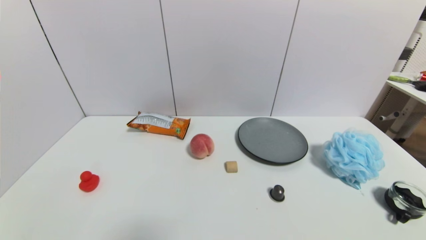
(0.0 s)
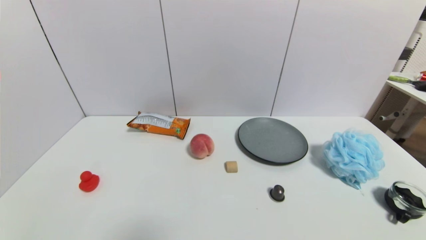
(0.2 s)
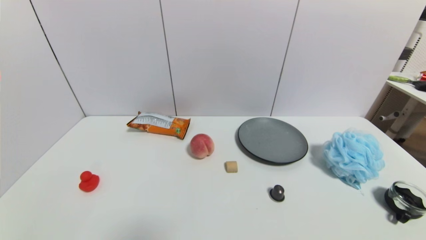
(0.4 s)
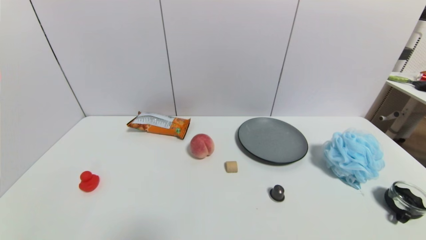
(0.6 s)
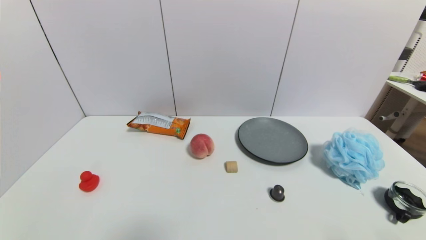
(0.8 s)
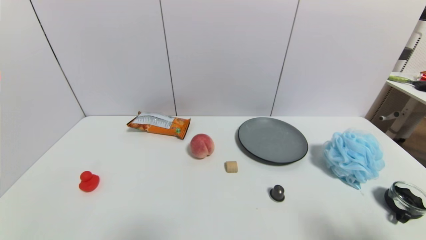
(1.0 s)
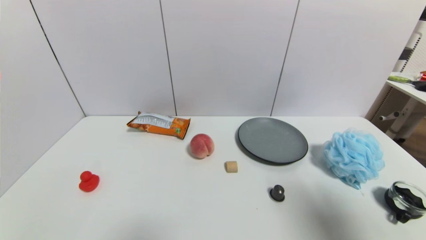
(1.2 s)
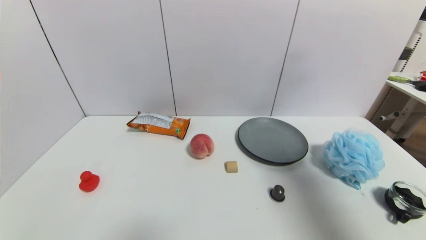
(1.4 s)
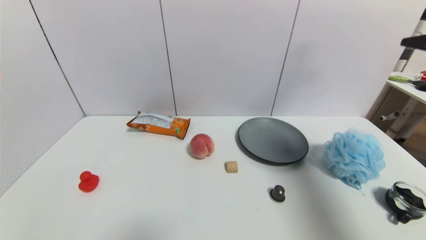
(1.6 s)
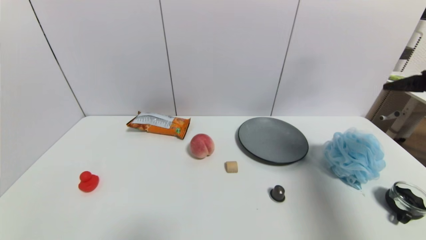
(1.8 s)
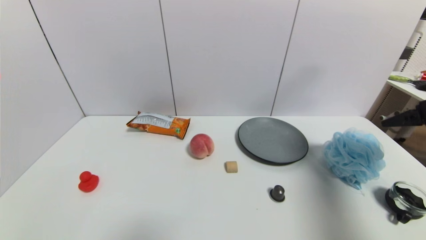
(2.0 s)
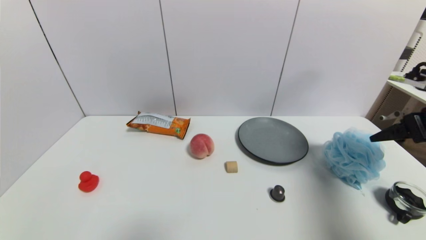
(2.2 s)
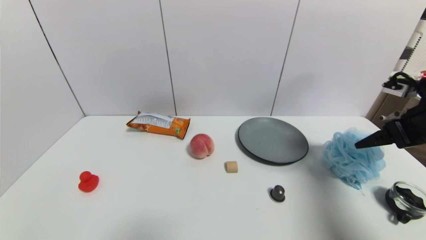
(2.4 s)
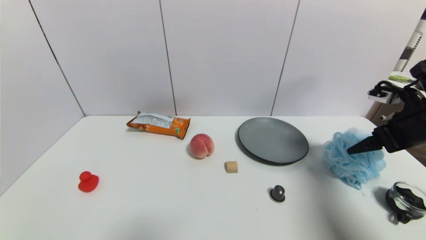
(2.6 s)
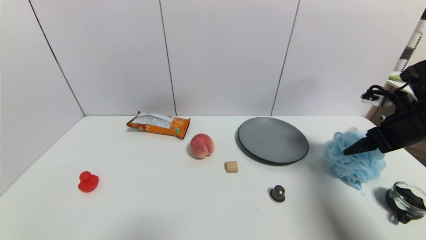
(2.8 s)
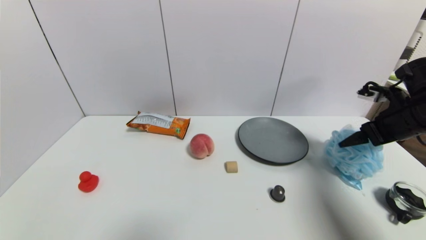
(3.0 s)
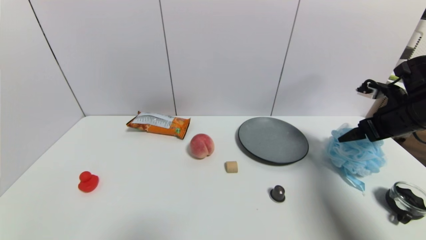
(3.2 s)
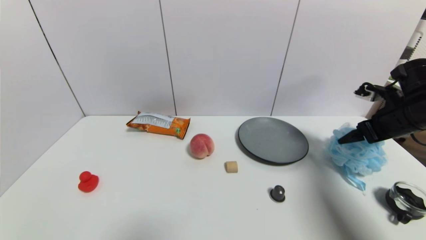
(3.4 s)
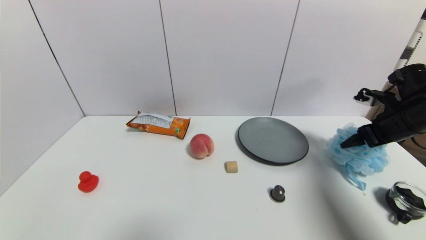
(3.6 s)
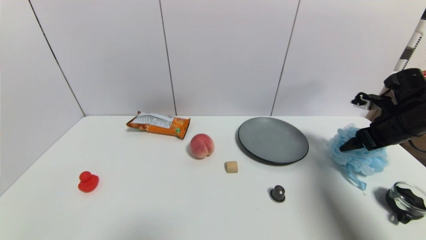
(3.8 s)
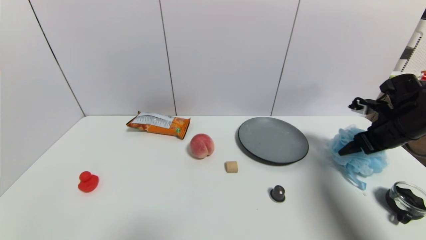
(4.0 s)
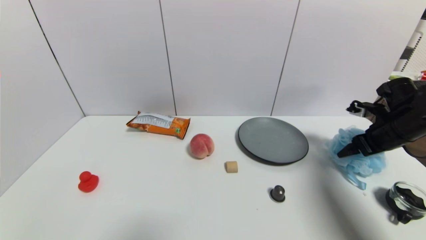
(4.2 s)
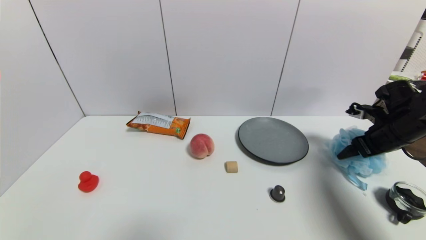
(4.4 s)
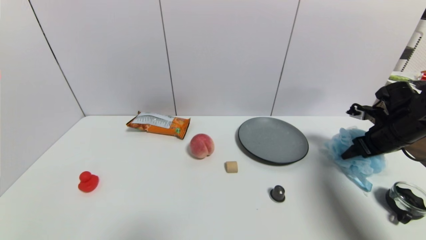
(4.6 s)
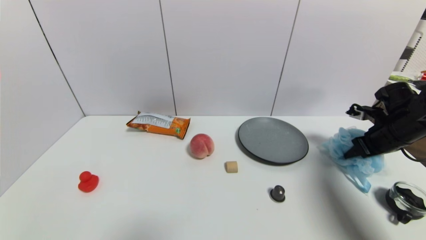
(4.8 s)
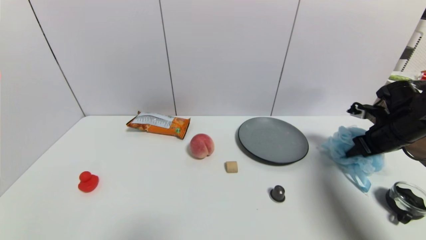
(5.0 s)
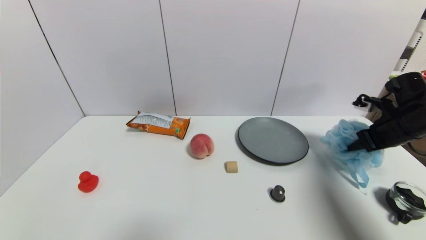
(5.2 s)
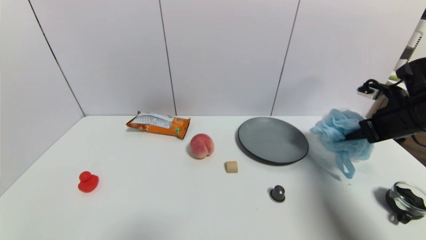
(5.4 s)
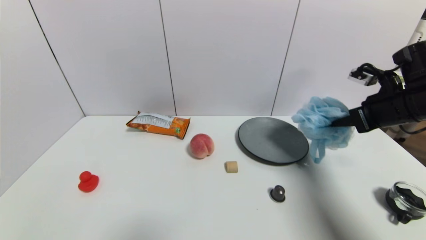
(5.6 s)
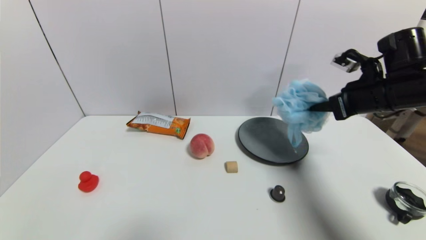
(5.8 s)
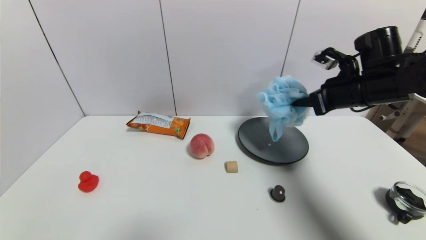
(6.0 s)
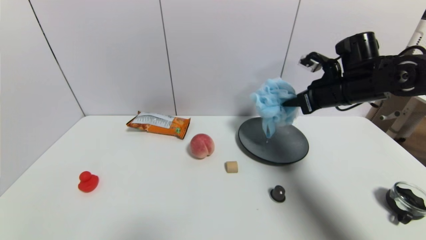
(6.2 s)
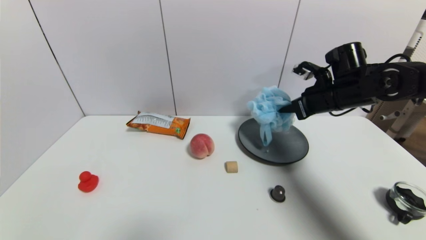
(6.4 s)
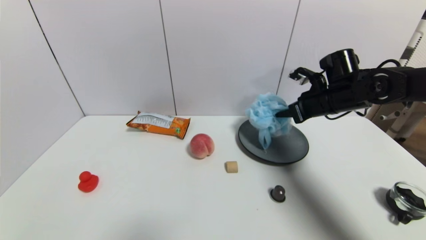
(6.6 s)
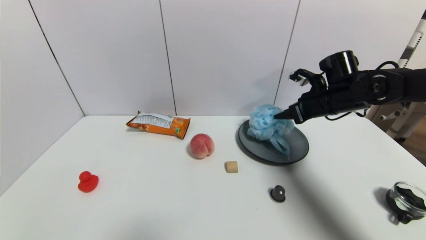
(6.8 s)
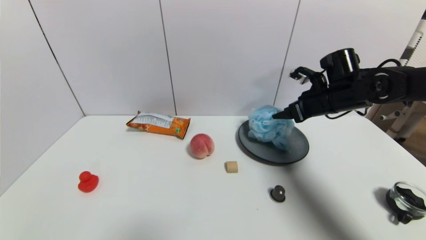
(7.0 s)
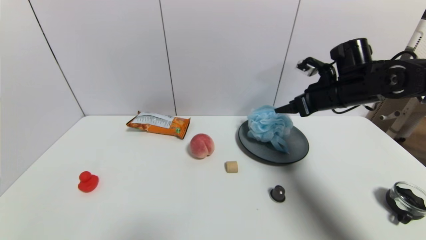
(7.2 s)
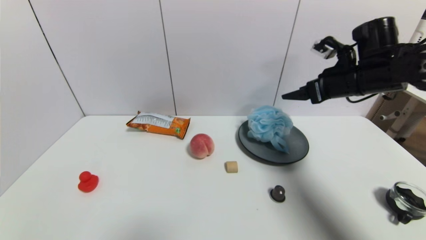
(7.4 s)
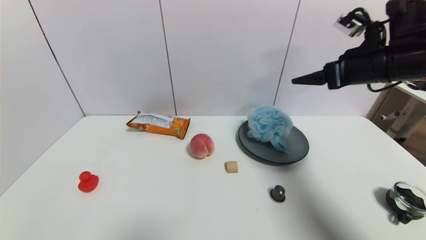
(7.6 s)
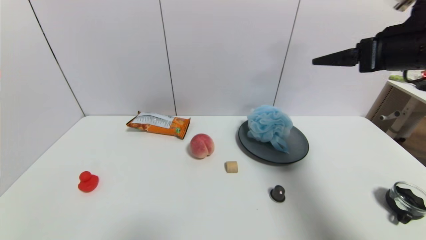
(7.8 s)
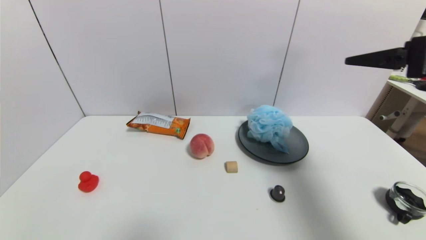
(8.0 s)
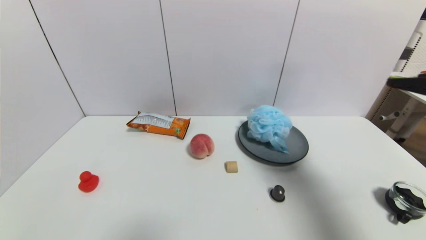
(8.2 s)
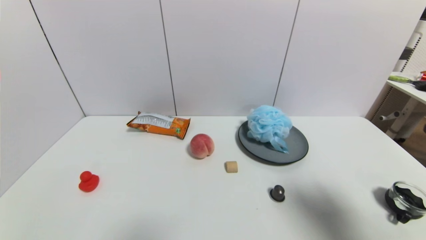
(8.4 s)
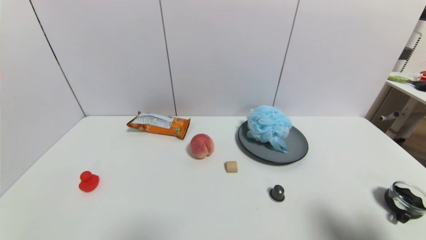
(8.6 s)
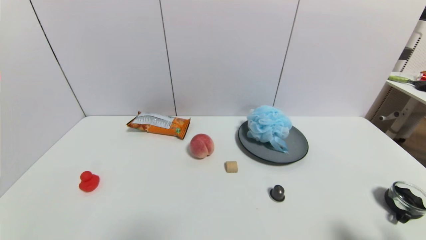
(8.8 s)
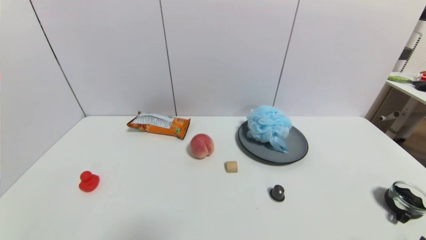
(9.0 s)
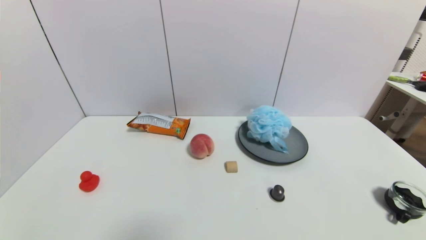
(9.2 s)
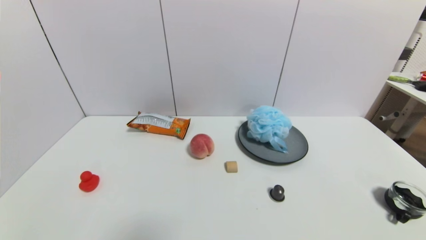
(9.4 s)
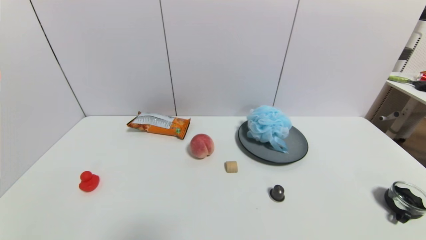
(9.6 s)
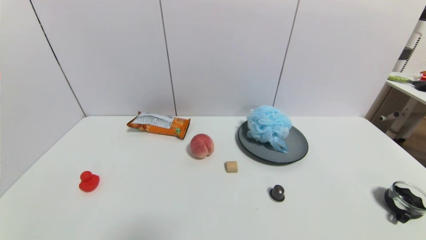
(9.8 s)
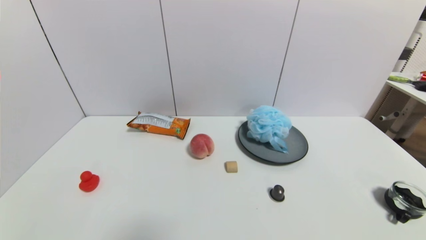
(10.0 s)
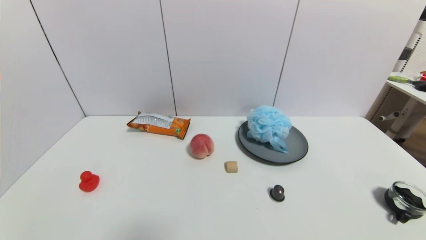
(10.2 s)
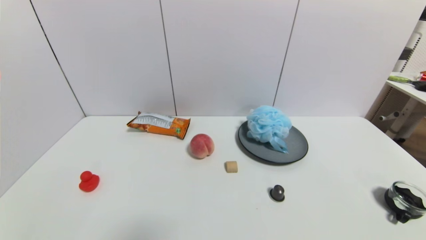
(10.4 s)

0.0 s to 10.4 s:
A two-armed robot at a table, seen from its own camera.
Task of the whole recording: use a gripper to pick the target object and place on the gray plate.
Step, 0.0 to 5.0 s: Grasp the shower sphere with the right gripper.
Step, 5.2 to 7.4 s: Place the shower sphere on the gray plate with the right gripper.
0.0 to 1.4 s: The right gripper shifts roughly 35 cm upward and forward.
1.4 to 3.0 s: The right gripper is displaced forward and downward by approximately 20 cm.
3.0 to 4.4 s: The right gripper heads downward, covering some 5 cm.
4.4 to 6.0 s: The right gripper goes about 15 cm to the left and upward, and closes its fingers.
6.0 to 7.4 s: The right gripper opens up.
7.4 to 9.0 s: The right gripper shifts some 40 cm backward and downward.

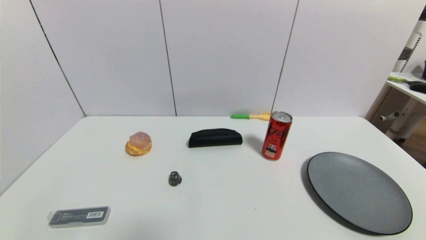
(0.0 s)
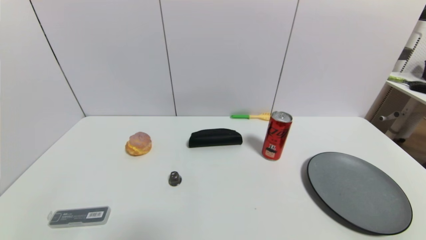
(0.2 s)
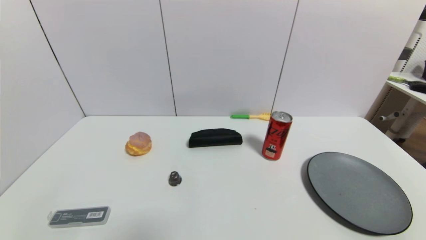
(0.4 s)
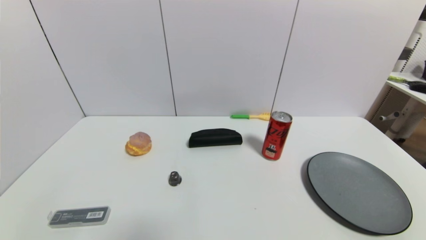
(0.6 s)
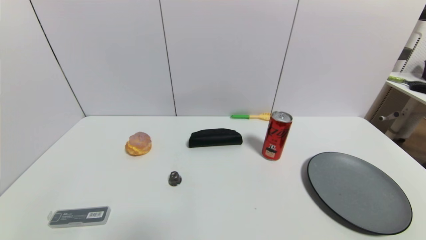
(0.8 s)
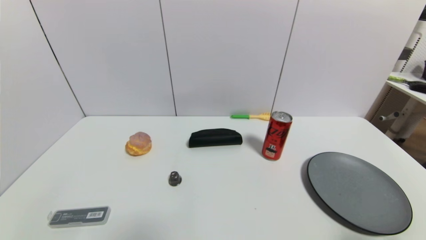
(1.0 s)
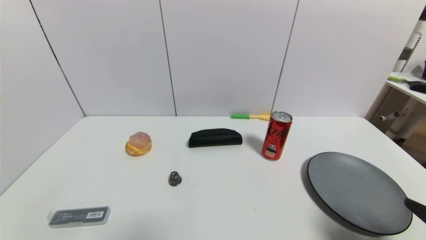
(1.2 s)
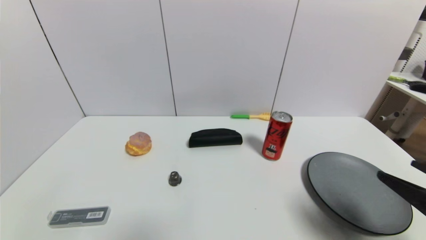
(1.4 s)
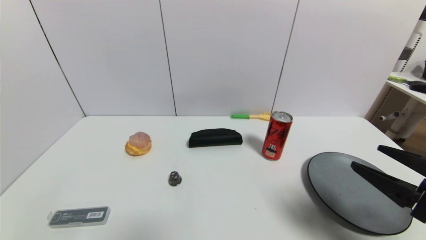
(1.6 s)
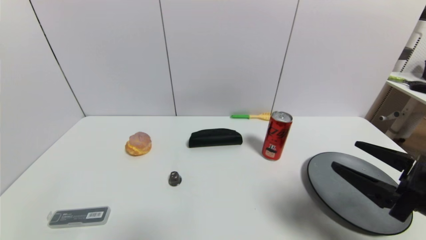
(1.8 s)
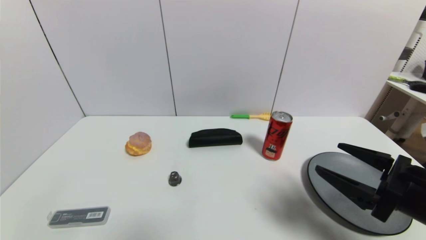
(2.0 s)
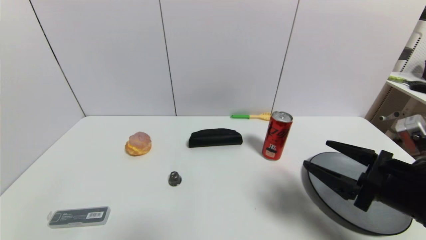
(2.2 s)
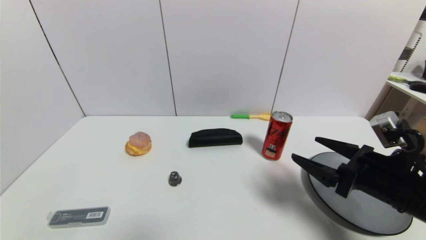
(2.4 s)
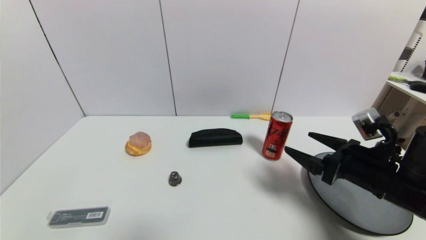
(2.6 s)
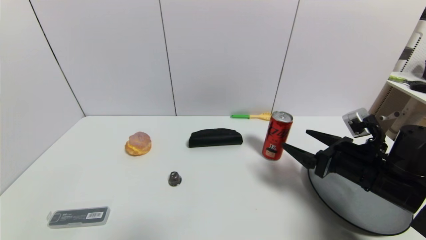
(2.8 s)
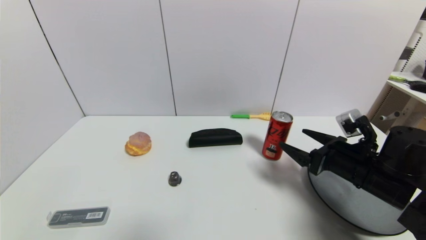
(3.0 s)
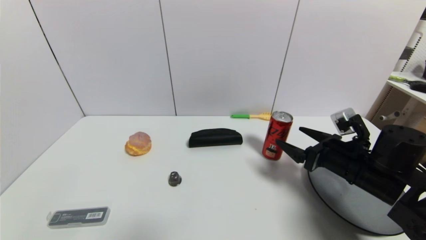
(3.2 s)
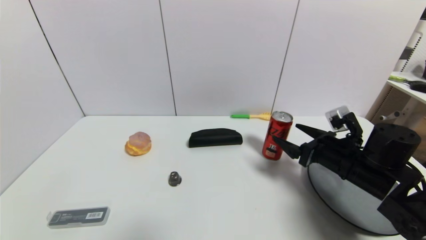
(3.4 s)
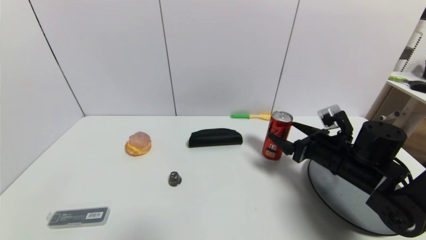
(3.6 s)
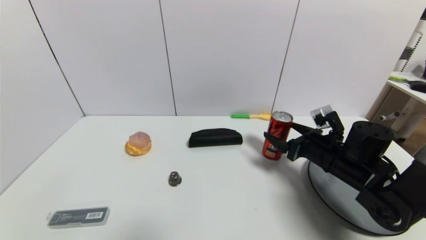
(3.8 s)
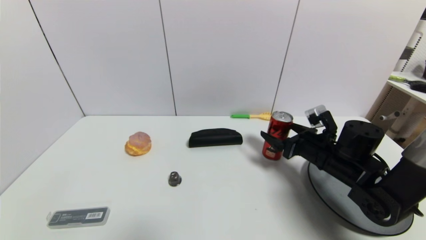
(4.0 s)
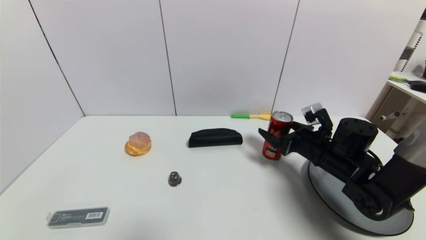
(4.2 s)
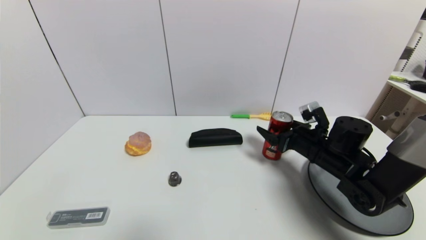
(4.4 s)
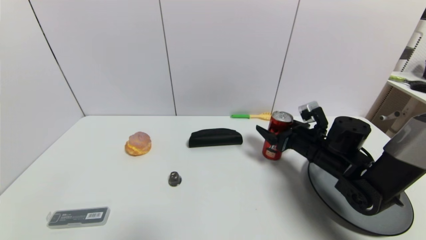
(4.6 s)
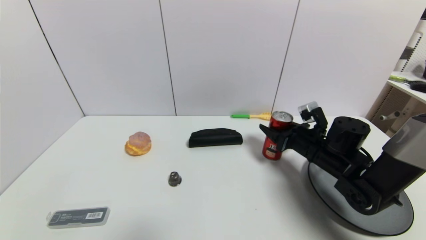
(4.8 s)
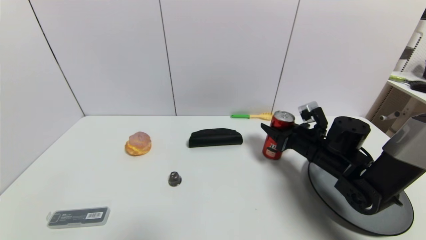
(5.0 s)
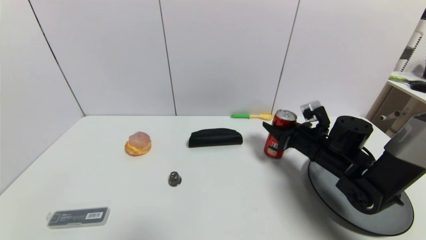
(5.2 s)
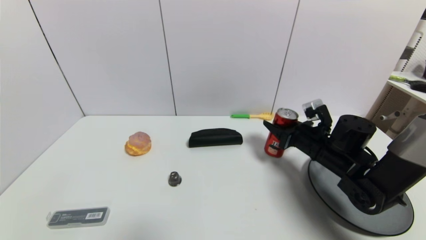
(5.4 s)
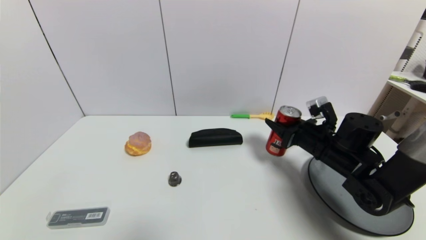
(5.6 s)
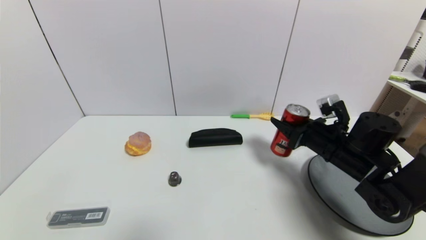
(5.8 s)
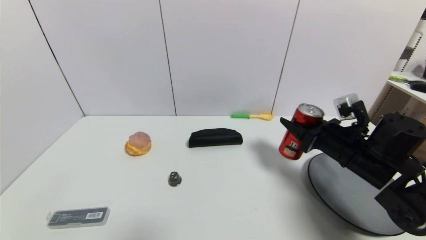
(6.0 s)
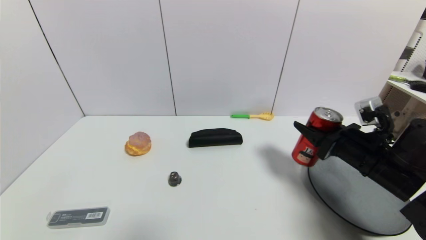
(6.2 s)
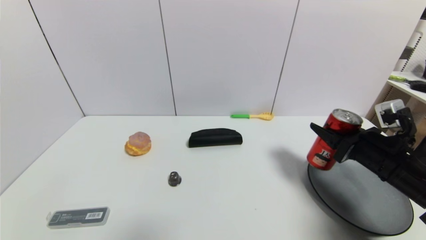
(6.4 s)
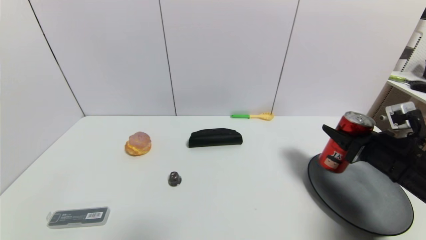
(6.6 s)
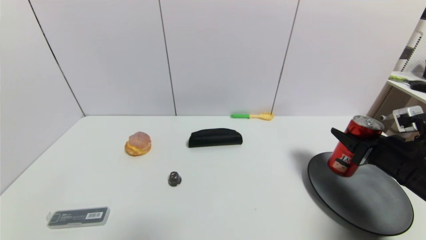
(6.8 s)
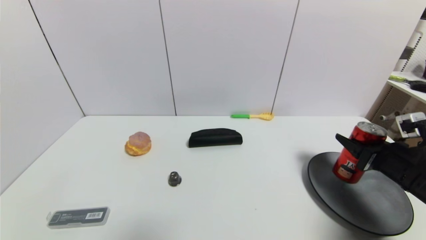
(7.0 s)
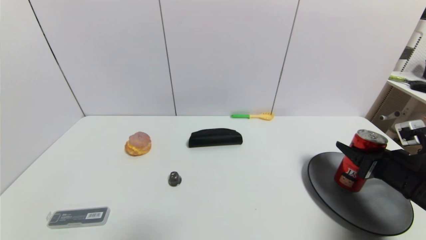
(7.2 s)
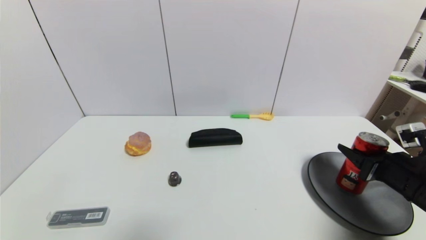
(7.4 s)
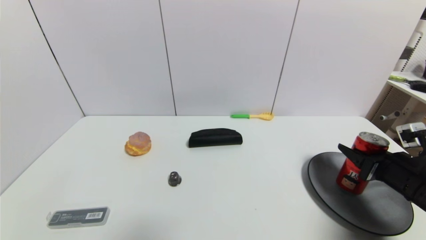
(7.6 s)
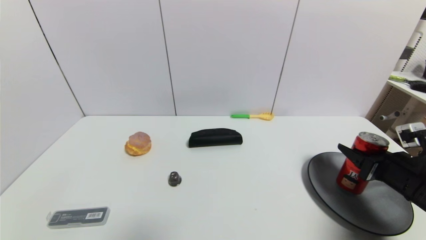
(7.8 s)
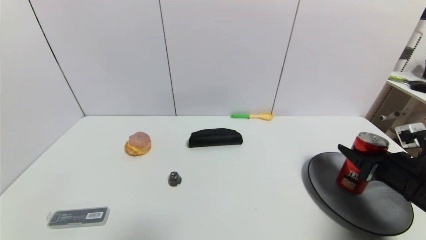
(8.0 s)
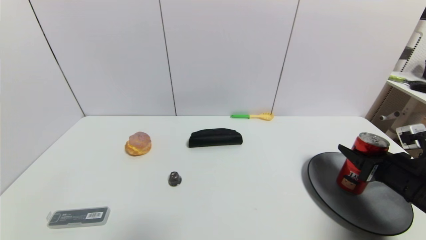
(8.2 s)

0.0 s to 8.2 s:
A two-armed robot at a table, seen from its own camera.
Task of the whole recording: use a gripper to pick the target object and place on the gray plate.
Step, 0.0 to 5.0 s: Grasp the coke with the right gripper.
0.0 to 1.6 s: The right gripper is displaced forward and upward by approximately 20 cm.
1.6 to 3.2 s: The right gripper goes some 15 cm forward and downward.
3.2 to 5.0 s: The right gripper is displaced forward by approximately 5 cm, and closes.
5.0 to 6.6 s: The right gripper is displaced backward and to the right by some 15 cm.
6.6 to 8.2 s: The grippers stay close to where they were, moving slightly.
